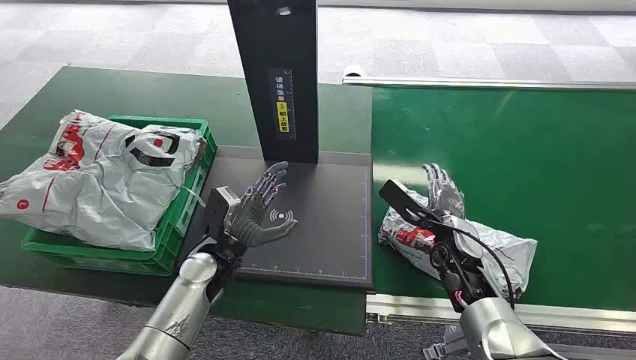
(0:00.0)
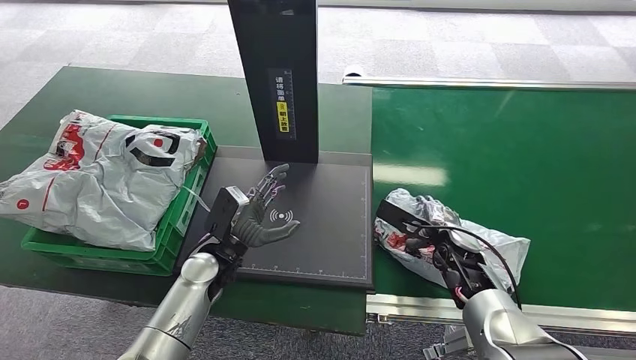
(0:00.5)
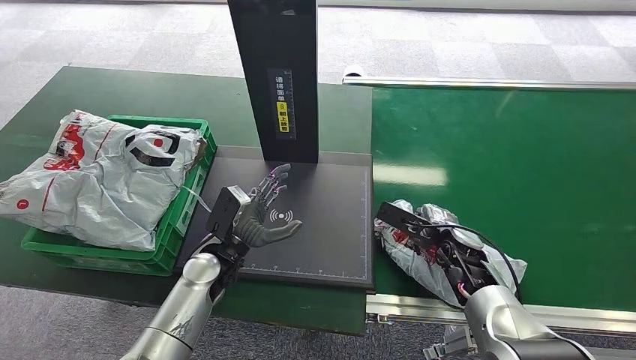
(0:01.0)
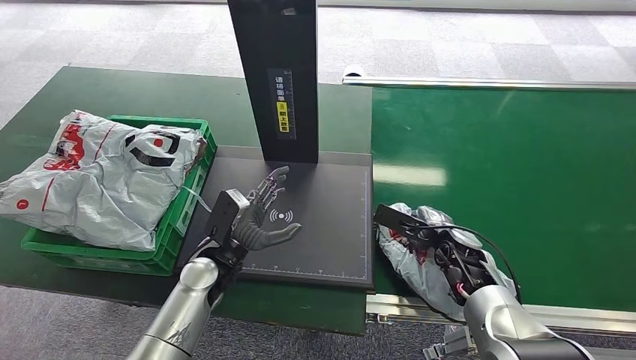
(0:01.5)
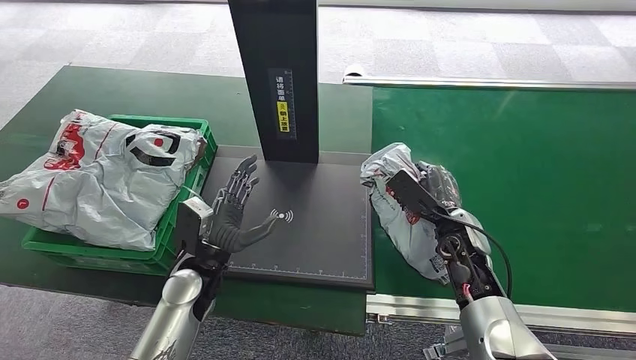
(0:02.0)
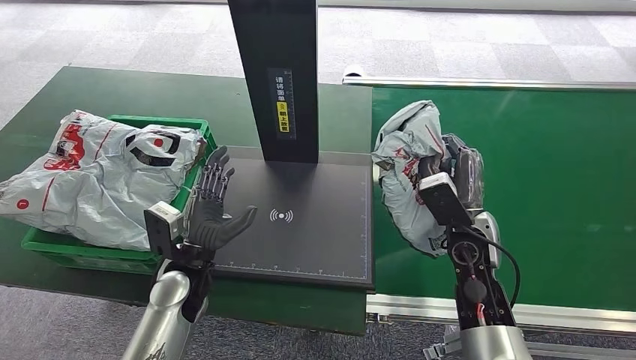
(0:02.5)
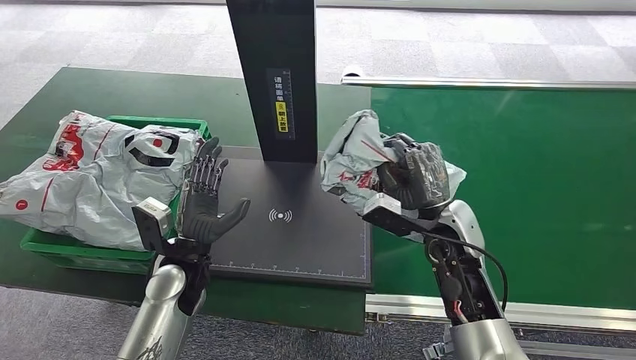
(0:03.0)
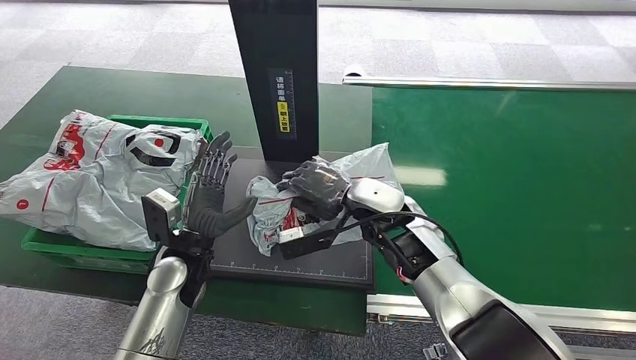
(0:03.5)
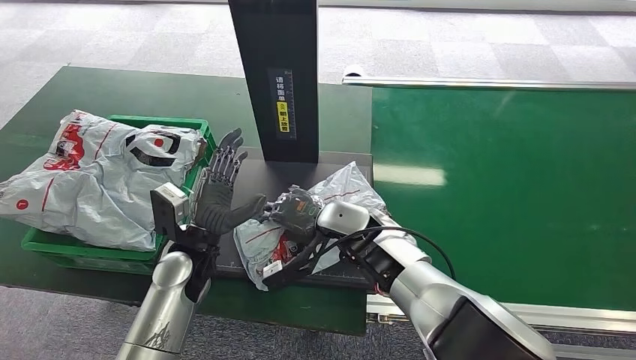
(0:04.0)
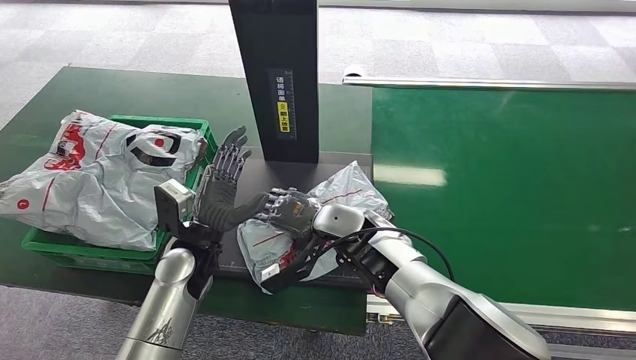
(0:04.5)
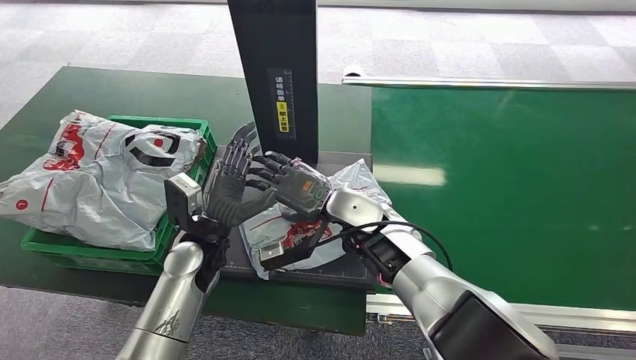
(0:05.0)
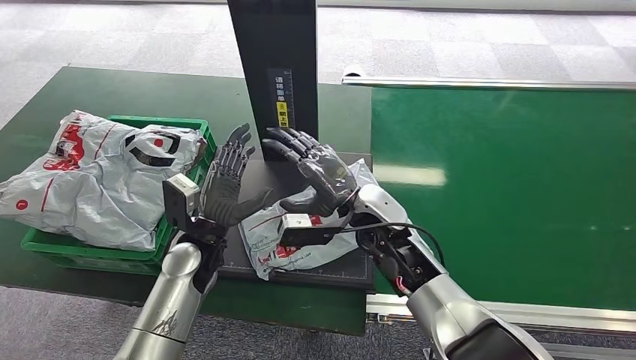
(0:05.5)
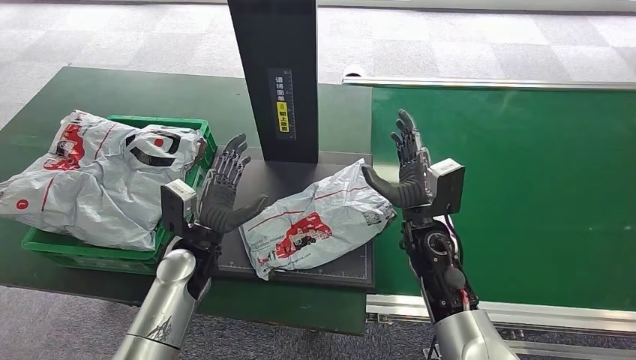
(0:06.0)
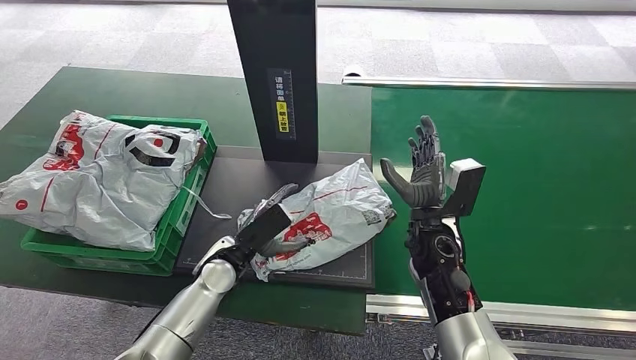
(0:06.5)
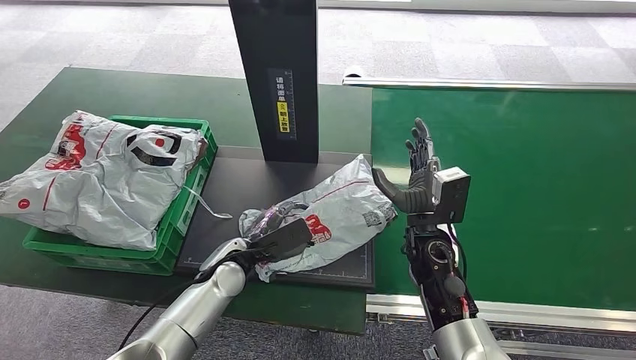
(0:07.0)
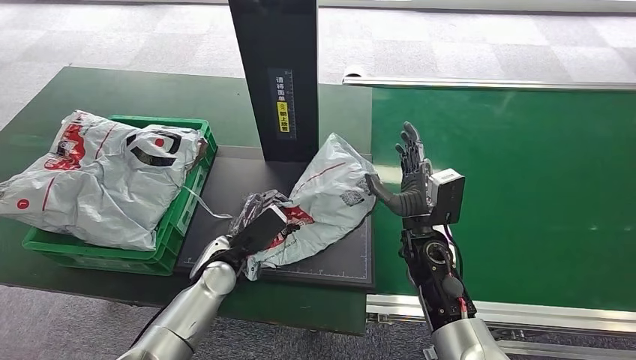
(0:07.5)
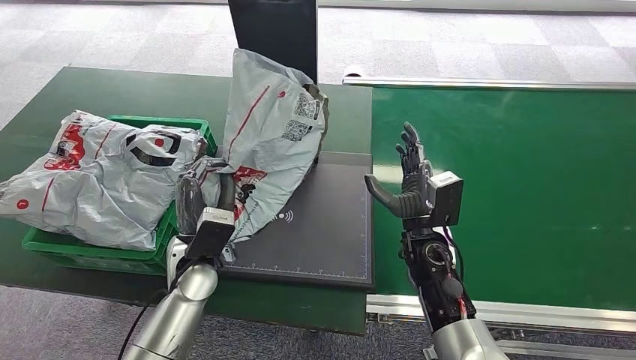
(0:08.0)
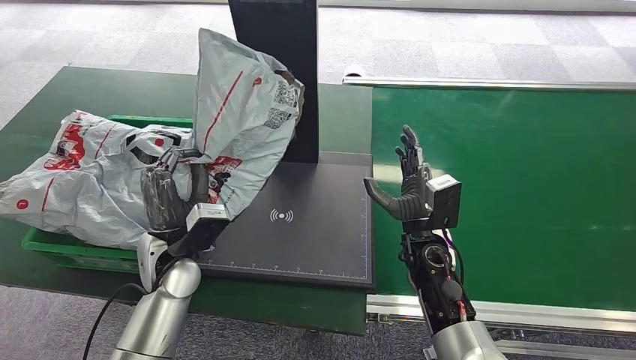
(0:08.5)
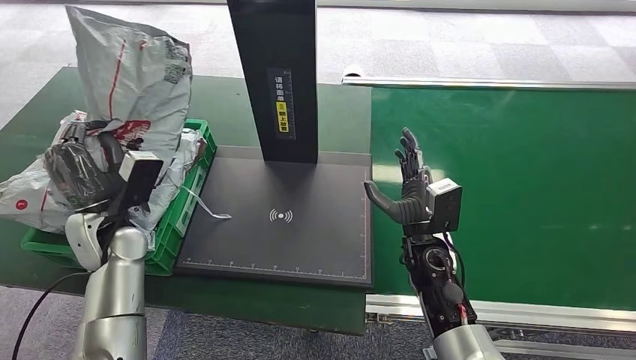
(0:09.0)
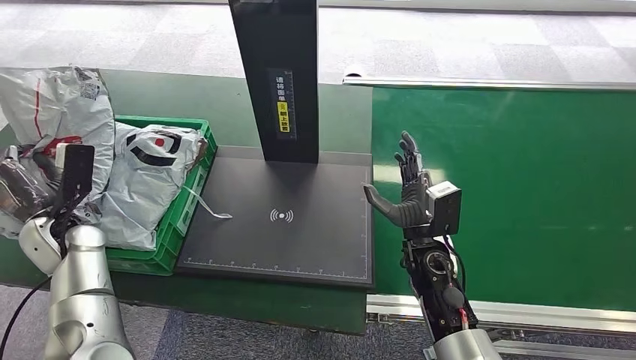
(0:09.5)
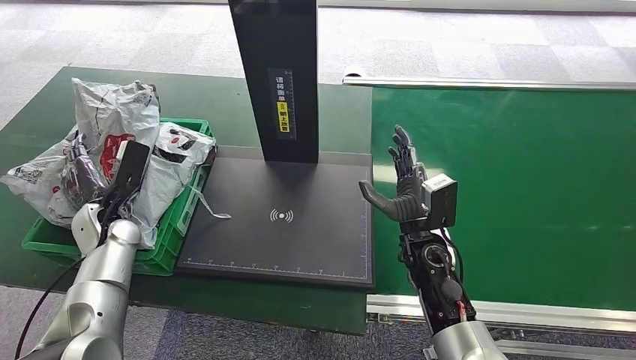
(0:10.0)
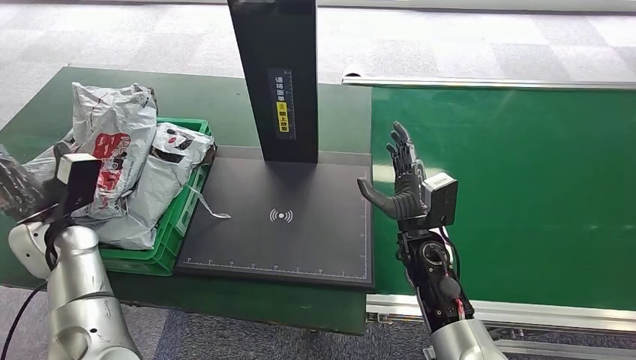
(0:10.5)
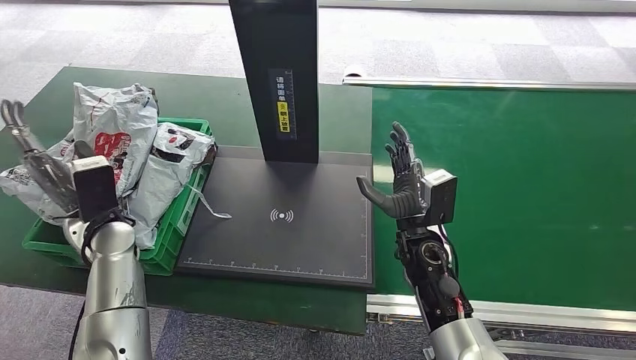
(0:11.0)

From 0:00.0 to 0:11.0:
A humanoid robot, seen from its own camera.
Step, from 0:00.0 to 0:02.5: Pick up the package from the conveyor belt.
Step, from 0:03.0 to 0:05.0: Place the package onto the inbound machine.
Step, from 0:05.5 to 0:07.5: Pick up the package from the inbound machine.
Step, from 0:08.0 to 0:11.0: Place the package into the parcel locker.
From 0:02.0 to 0:03.5: The right hand is displaced to the left and upward by roughly 15 cm.
From 0:05.5 to 0:07.5: The right hand goes approximately 10 cm to the right and downward. Meanwhile the left hand heads downward, covering approximately 5 cm.
From 0:09.0 to 0:11.0: The left hand reaches about 10 cm to the left, then returns.
